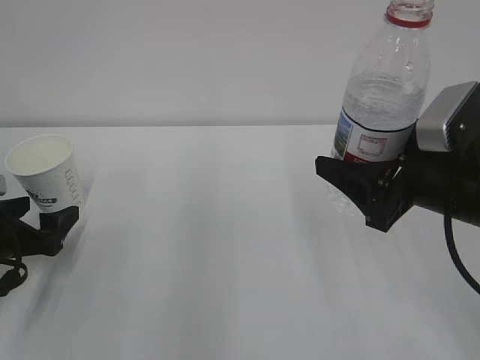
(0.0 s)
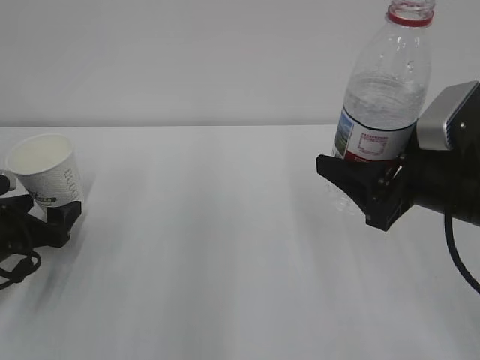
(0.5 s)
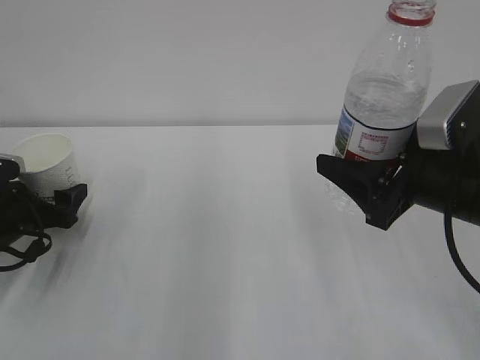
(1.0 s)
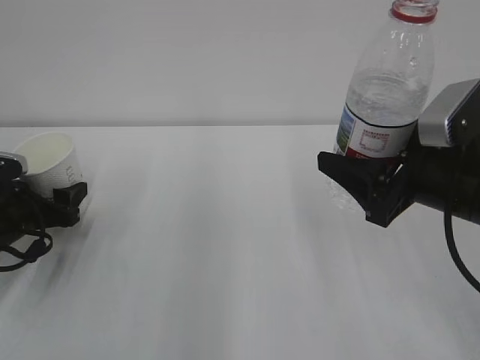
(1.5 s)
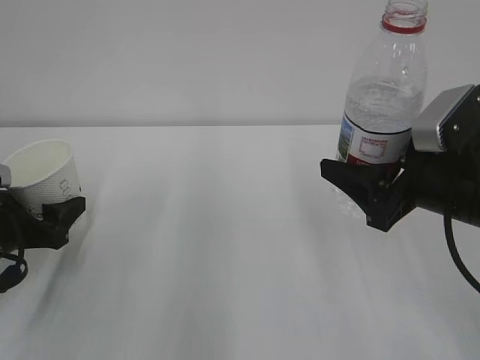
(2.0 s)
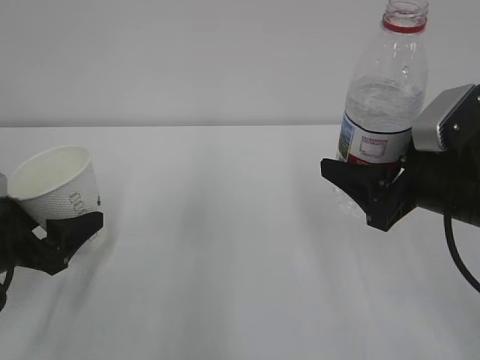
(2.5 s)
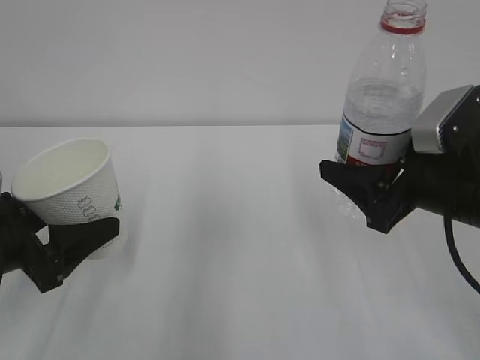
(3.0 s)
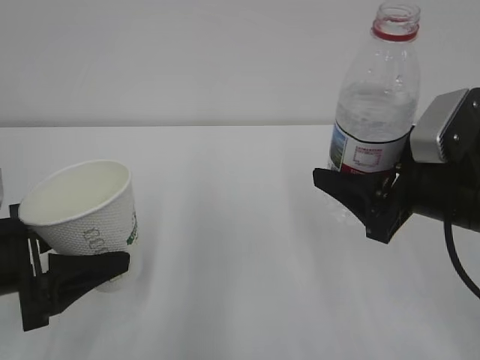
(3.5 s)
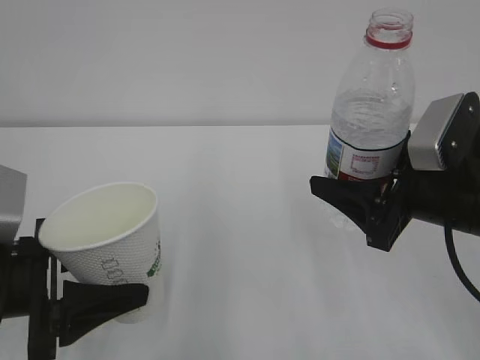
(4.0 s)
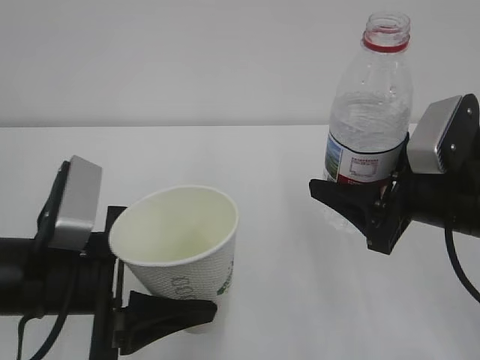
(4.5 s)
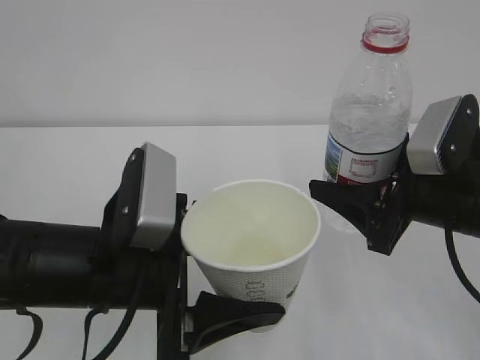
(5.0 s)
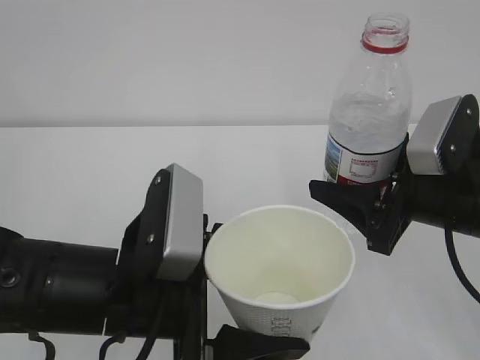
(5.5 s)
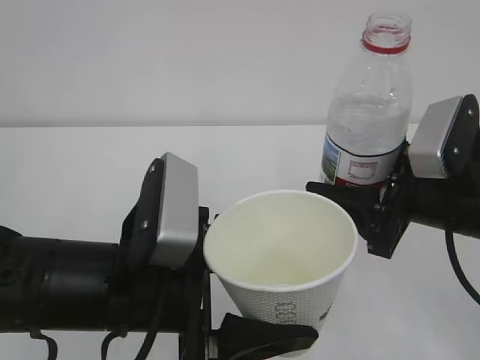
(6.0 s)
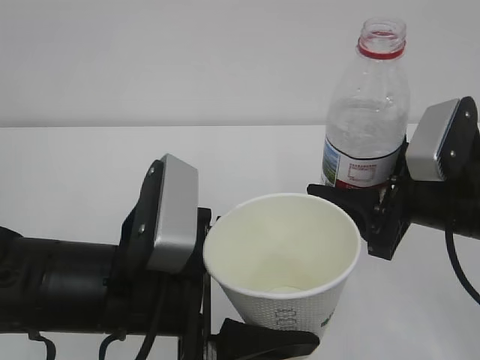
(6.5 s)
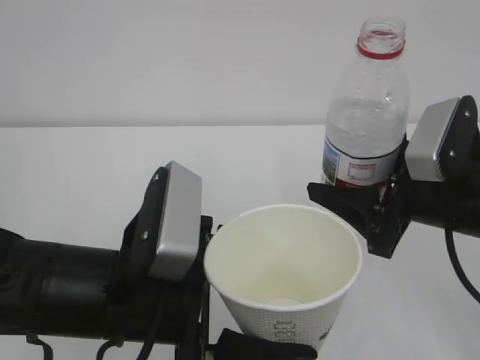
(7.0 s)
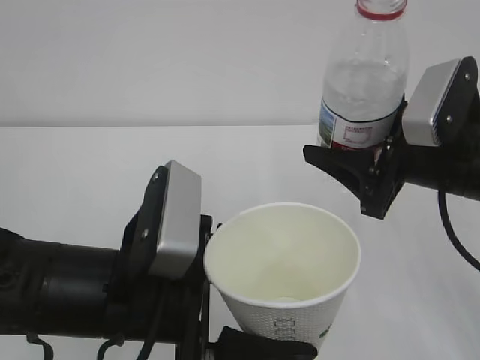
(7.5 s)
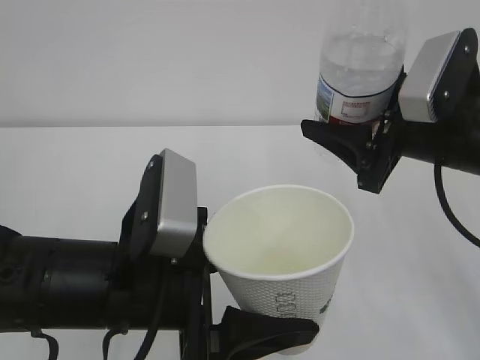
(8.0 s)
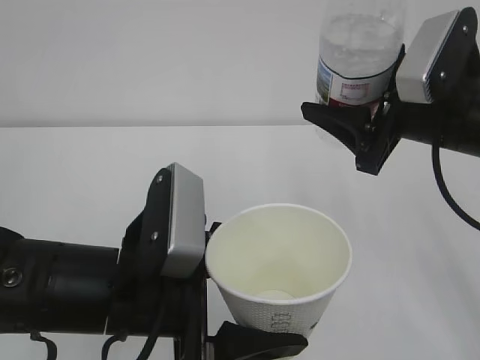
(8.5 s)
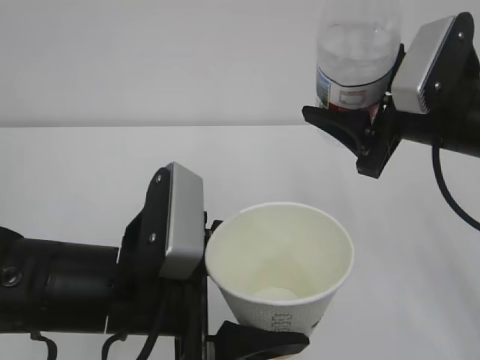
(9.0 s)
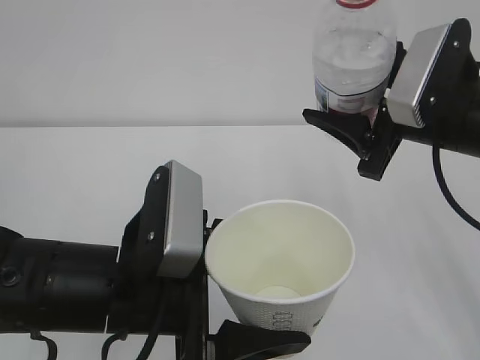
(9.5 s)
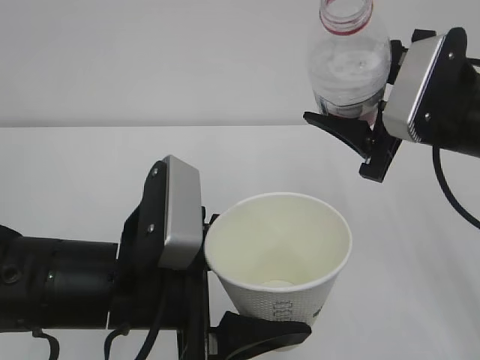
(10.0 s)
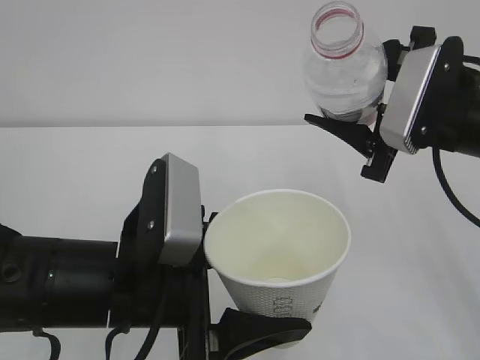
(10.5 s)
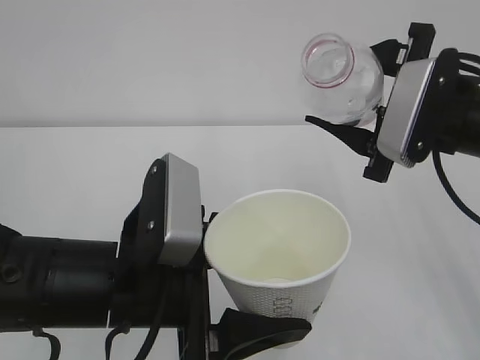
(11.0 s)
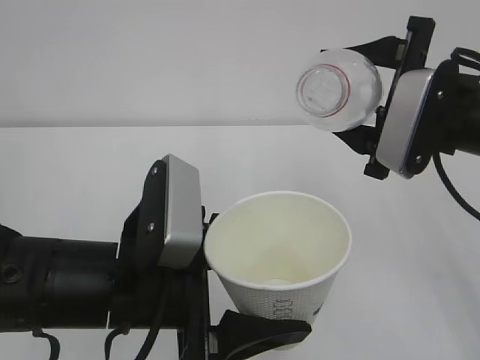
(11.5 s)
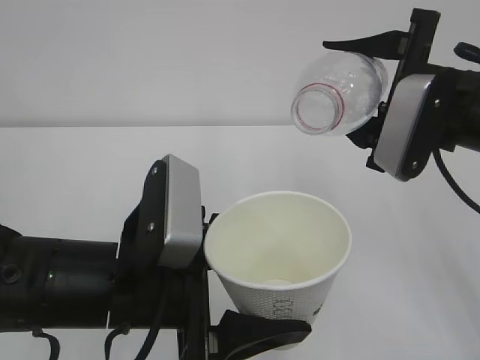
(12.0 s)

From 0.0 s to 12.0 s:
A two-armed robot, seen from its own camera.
From 0.0 s to 2.0 s: The left gripper closes up.
From 2.0 s to 4.0 s: The left gripper moves backward, to the right and upward, roughly 10 cm.
From 4.0 s to 6.0 s: The left gripper is displaced to the right by roughly 15 cm.
From 6.0 s to 8.0 s: The right gripper changes place by approximately 5 cm.

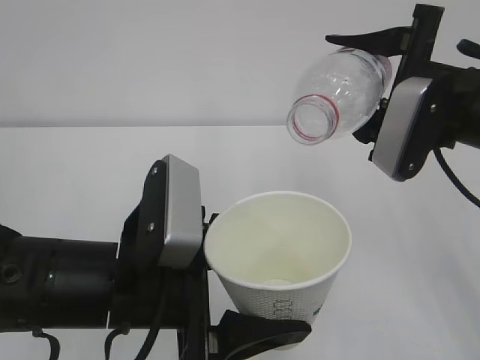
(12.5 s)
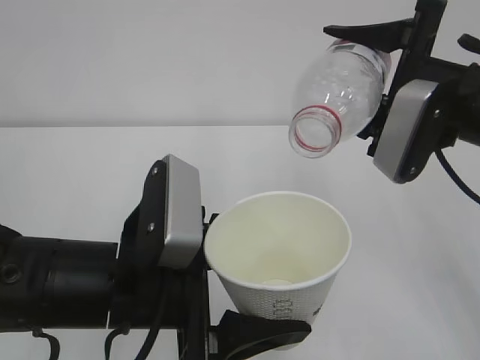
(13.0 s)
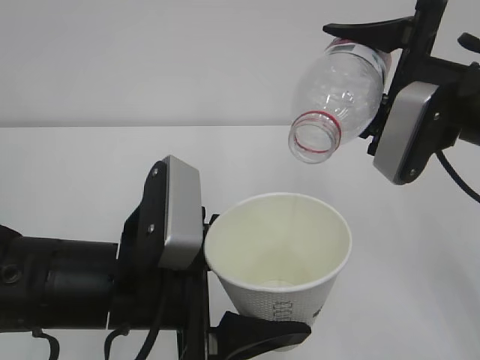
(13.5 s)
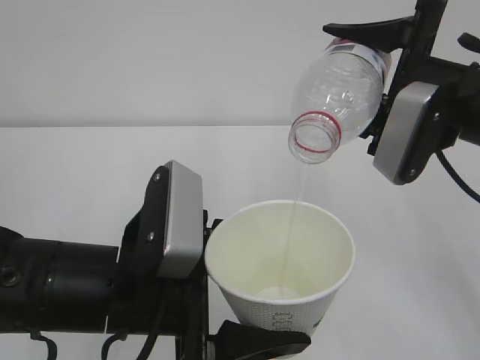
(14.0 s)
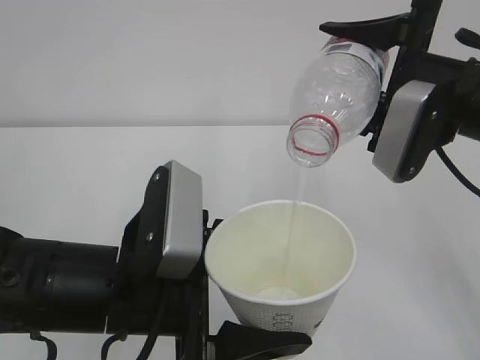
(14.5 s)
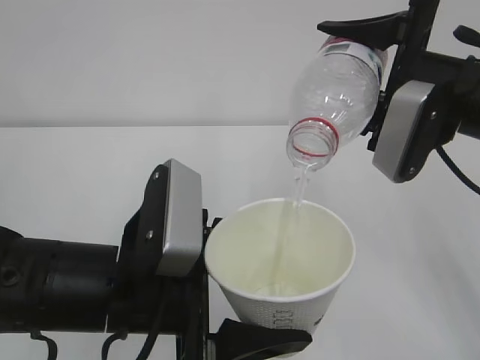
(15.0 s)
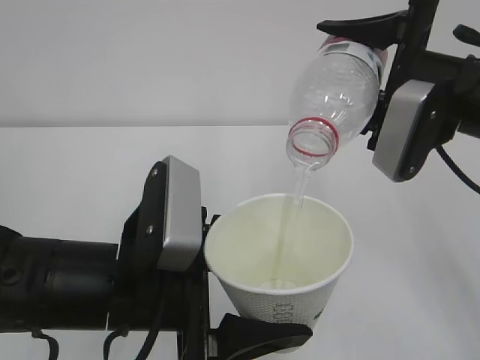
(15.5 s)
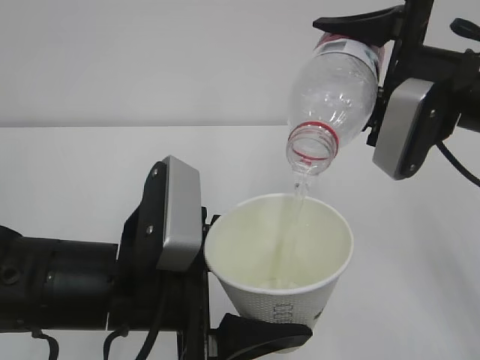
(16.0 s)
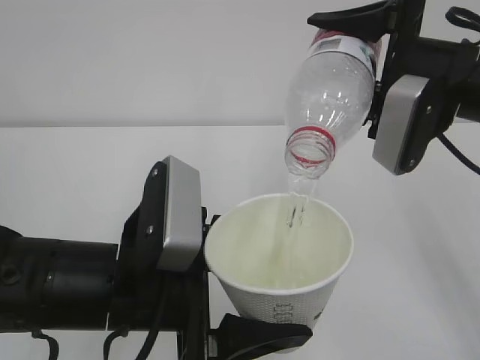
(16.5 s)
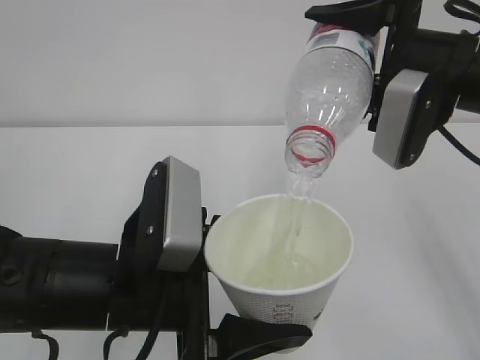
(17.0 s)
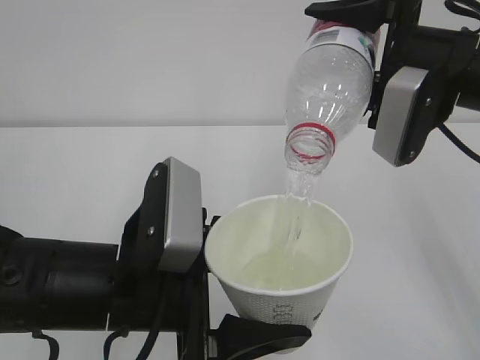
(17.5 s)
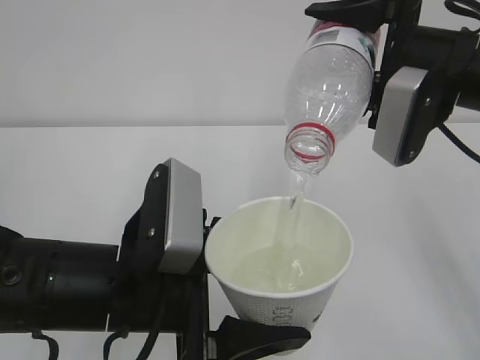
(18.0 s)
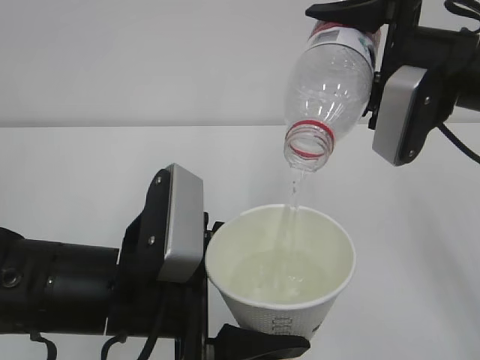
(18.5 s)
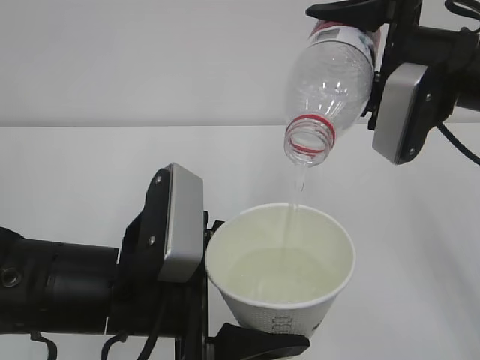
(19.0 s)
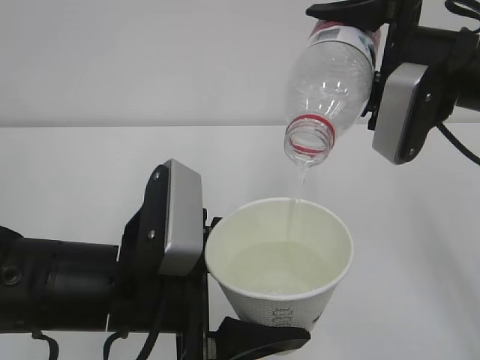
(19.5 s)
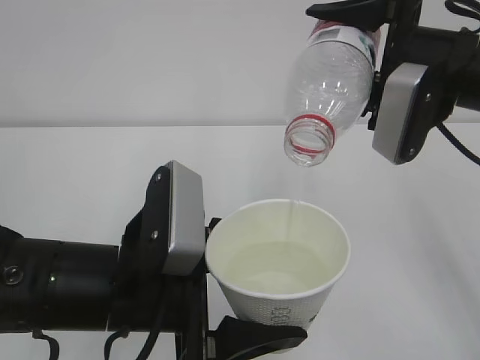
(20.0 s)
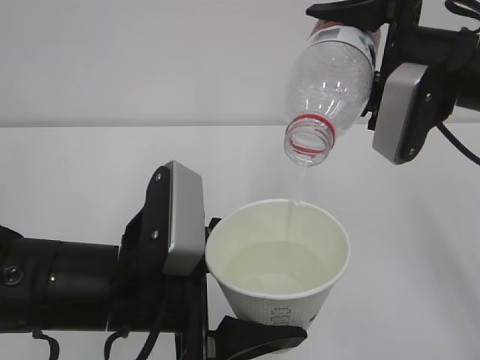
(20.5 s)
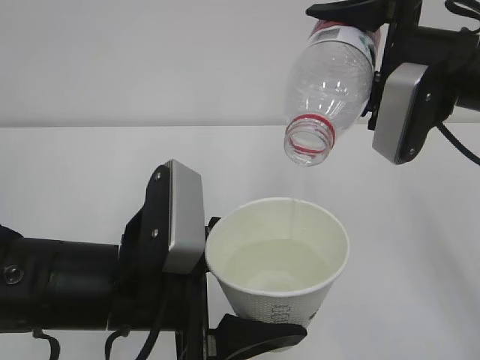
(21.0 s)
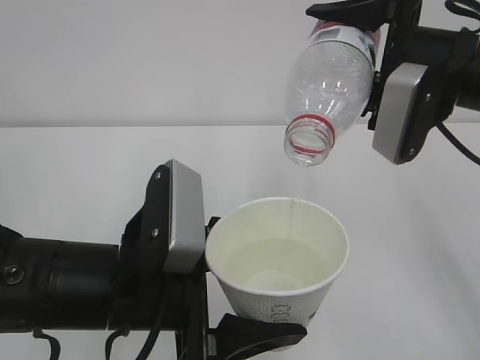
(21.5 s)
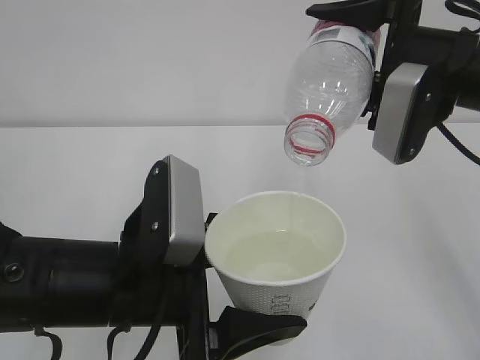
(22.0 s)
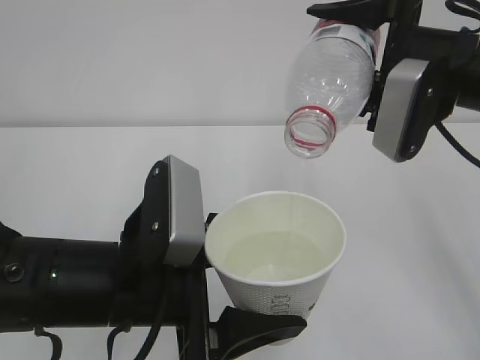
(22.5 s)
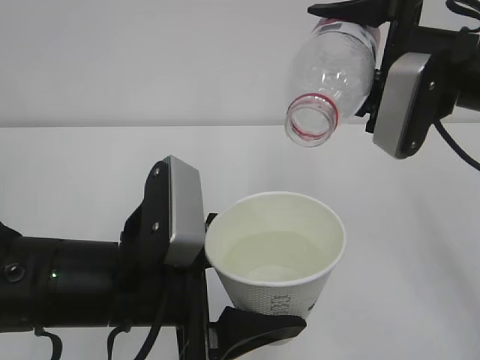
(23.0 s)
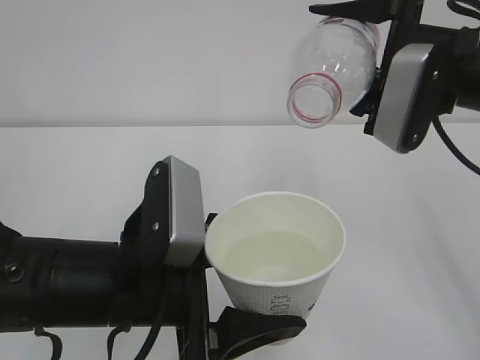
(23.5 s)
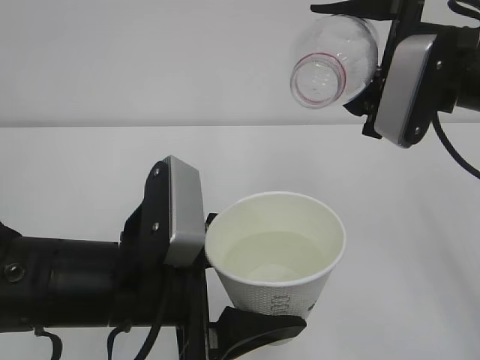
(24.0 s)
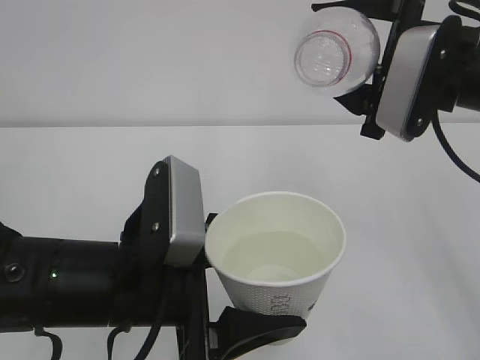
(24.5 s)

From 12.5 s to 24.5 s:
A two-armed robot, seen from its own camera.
From 12.5 s to 16.5 s: The grippers make only small movements.
From 16.5 s to 22.5 s: The two grippers keep their place.
From 22.5 s to 24.5 s: There are only small adjustments of the grippers.

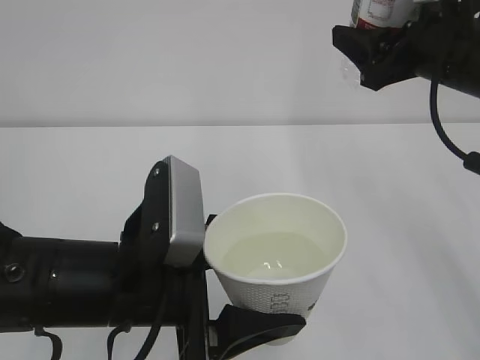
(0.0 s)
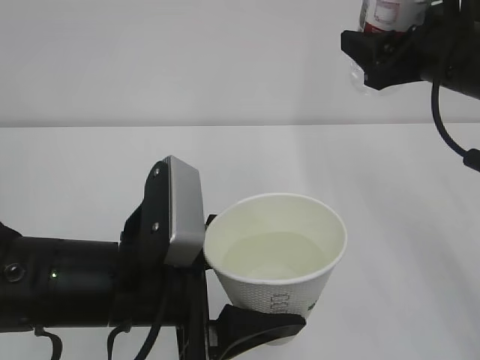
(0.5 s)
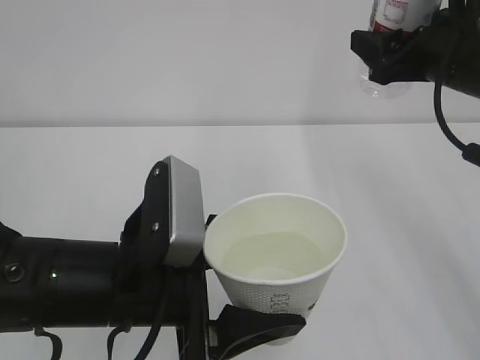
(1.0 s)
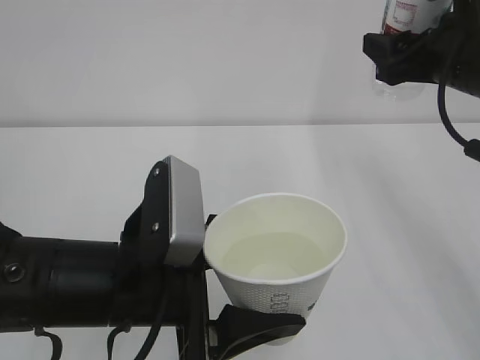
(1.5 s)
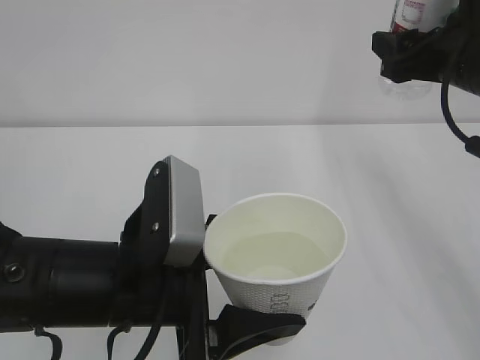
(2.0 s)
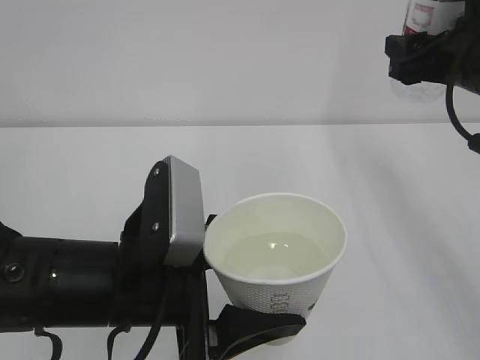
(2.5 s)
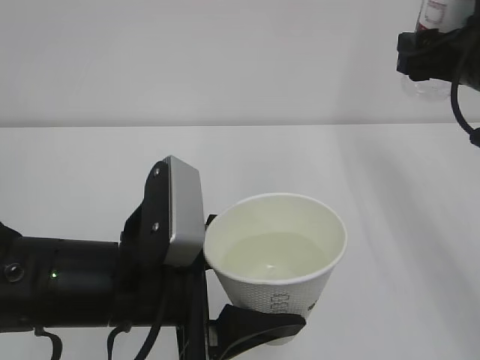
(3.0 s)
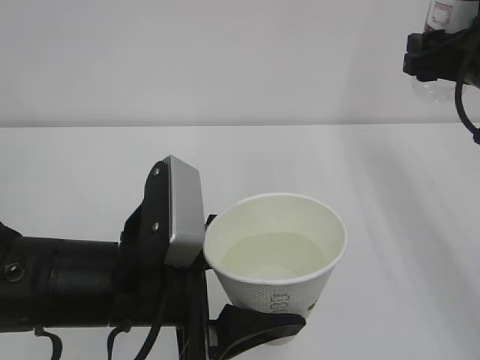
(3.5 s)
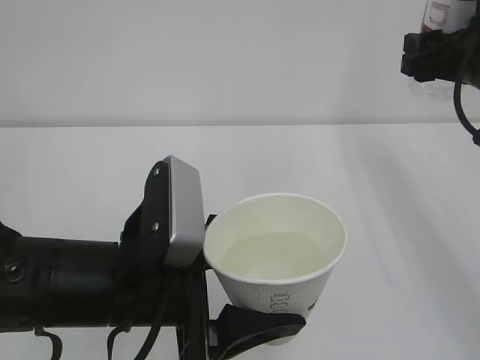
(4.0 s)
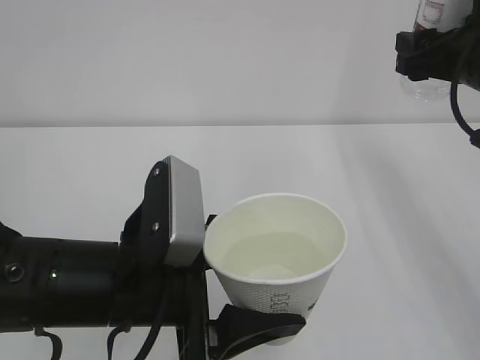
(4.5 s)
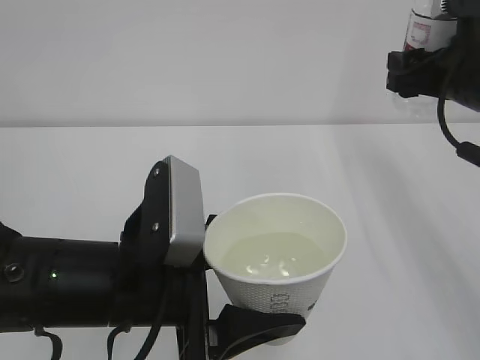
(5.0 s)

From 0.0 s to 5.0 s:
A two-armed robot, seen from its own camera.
From 2.5 s to 5.0 s: There are only small adjustments of the grippers.
